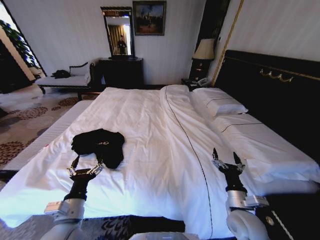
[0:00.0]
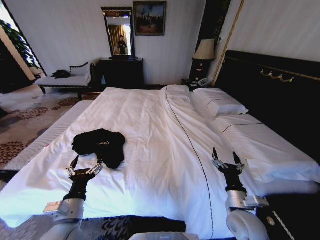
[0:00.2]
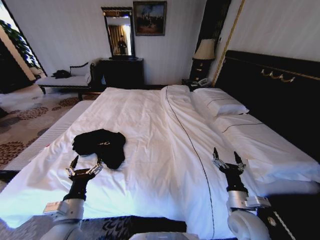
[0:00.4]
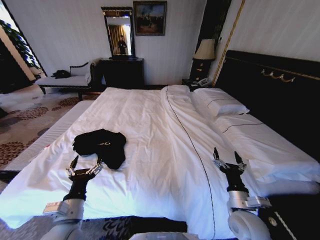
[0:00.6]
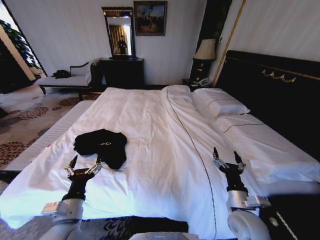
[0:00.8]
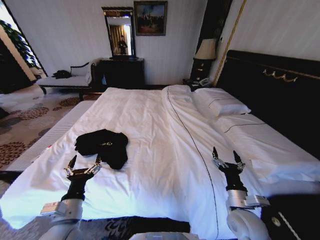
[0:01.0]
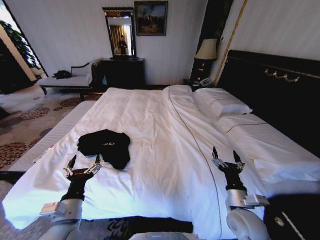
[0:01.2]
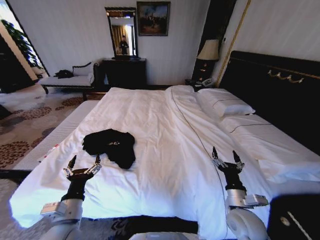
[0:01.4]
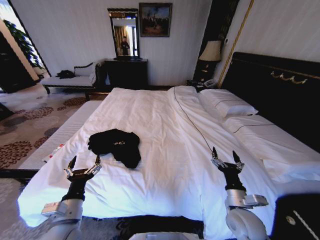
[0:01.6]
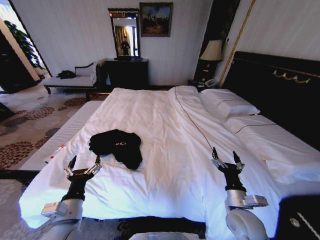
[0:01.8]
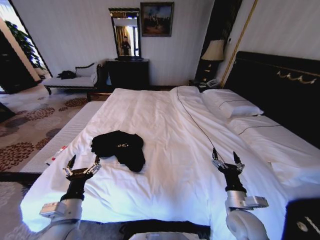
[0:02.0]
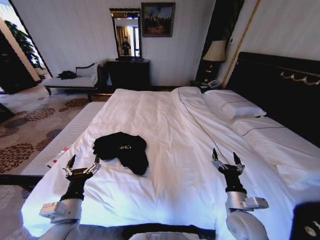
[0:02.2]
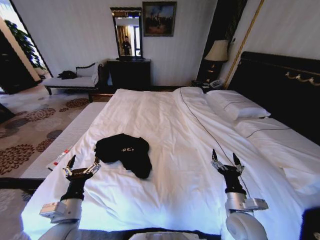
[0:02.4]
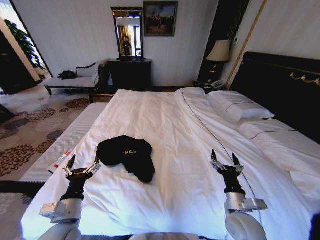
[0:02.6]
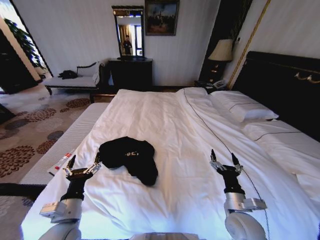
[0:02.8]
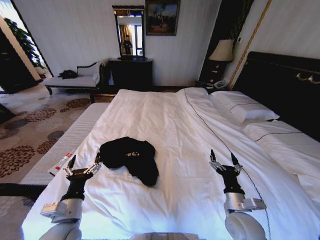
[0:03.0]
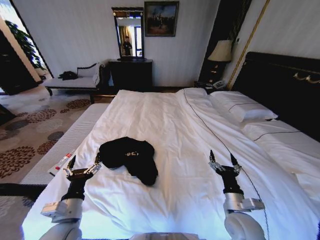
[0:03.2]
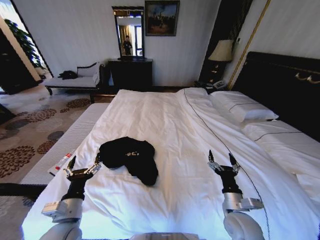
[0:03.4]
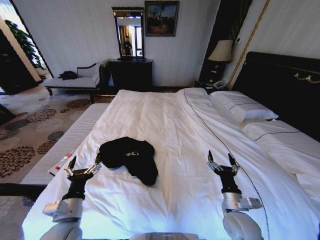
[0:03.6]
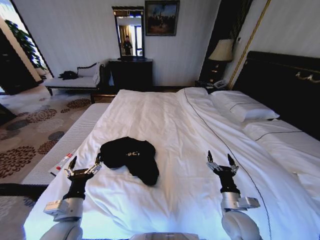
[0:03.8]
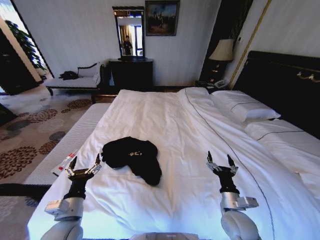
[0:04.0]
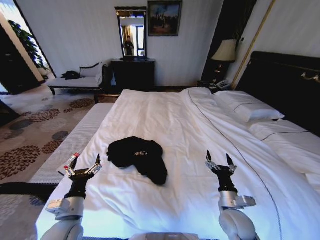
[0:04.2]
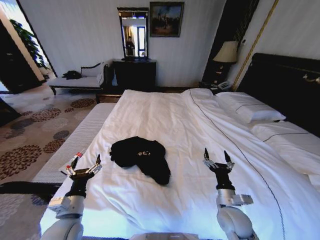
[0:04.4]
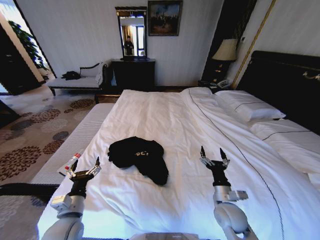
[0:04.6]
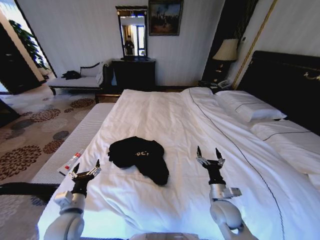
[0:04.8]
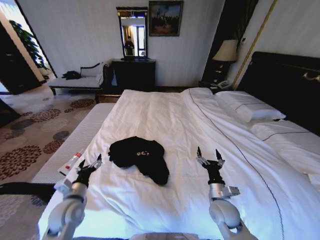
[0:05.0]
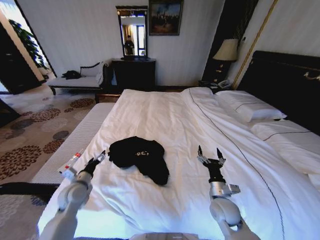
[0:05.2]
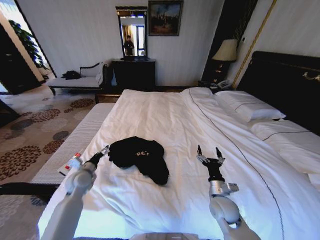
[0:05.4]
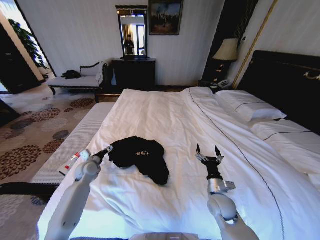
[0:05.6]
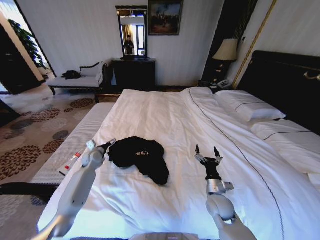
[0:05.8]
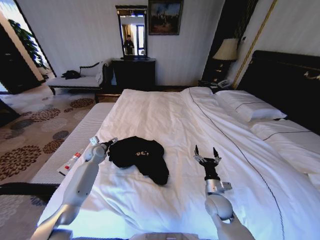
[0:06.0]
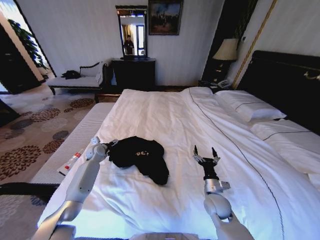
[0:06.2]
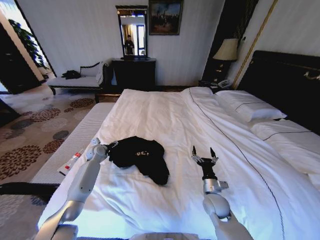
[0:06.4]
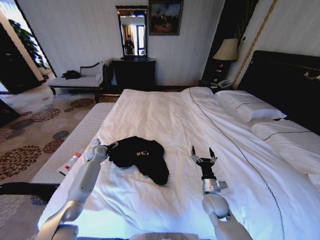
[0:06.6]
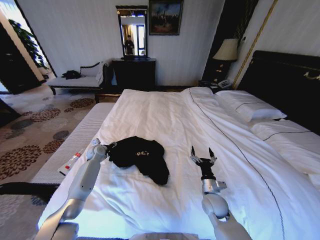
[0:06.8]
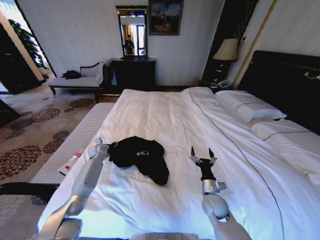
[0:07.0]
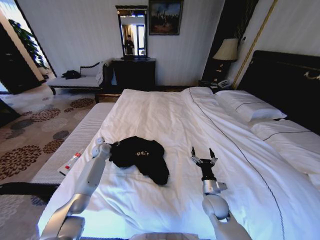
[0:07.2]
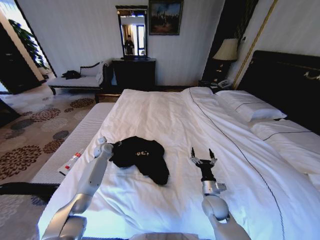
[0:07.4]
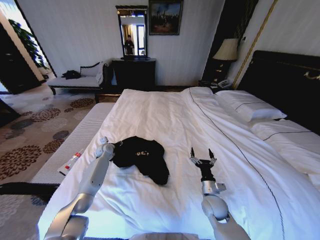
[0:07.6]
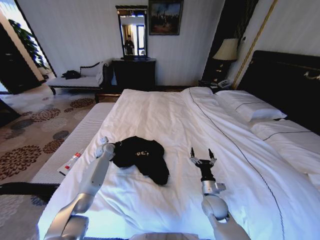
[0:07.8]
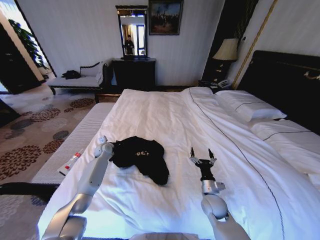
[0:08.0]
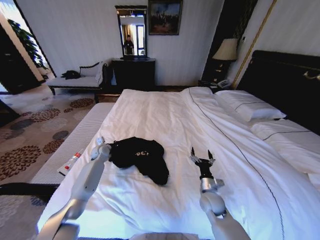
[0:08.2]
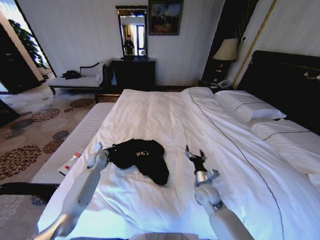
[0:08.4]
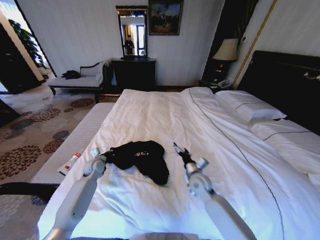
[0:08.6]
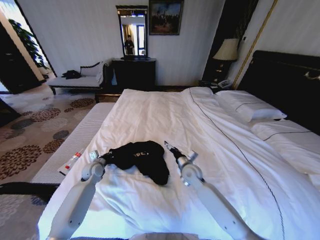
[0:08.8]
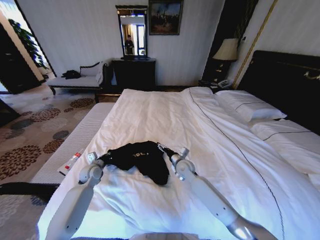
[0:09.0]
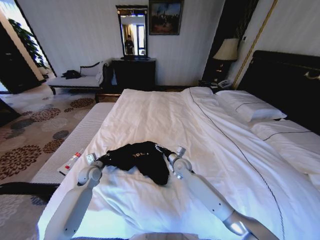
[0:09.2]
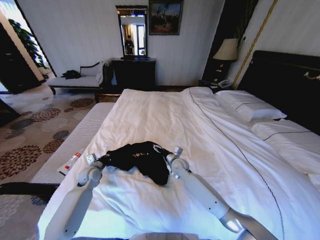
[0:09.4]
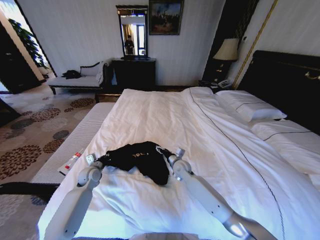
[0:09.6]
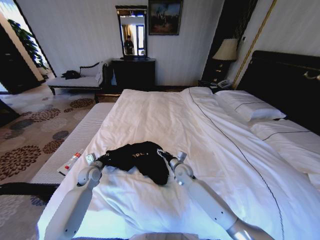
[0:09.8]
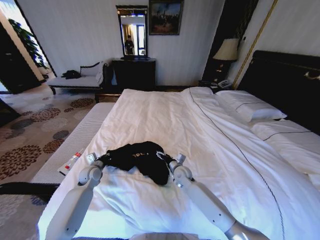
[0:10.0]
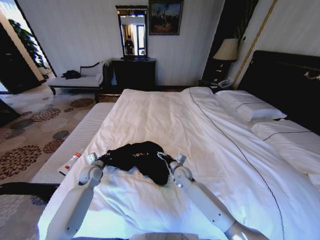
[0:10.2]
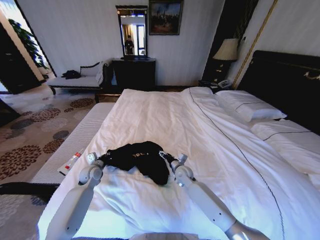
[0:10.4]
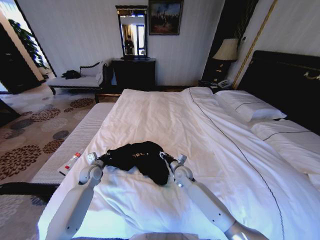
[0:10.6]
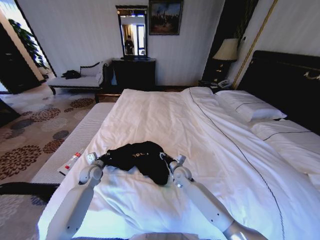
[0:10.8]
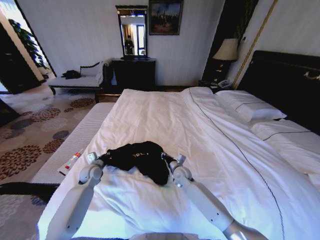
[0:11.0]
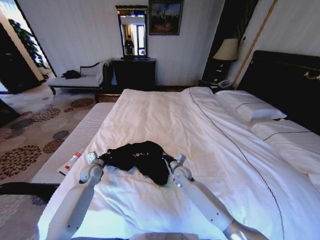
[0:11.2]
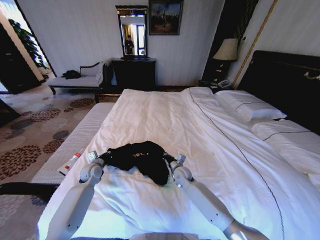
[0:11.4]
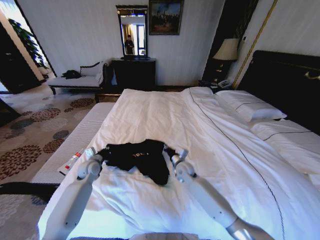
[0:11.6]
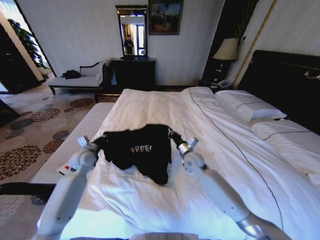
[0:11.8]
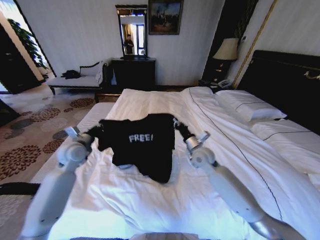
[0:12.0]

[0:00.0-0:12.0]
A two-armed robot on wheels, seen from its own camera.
Task of the whole recording: Fold the clothes on the bed.
0:04.4 to 0:06.0: The right gripper moves forward, roughly 5 cm, while the left gripper travels forward by some 35 cm.
0:06.0 to 0:07.6: The left gripper moves some 5 cm, and closes.
0:07.6 to 0:09.0: The left gripper travels backward by roughly 15 cm, and closes its fingers, while the right gripper heads forward and to the left, covering approximately 20 cm.
0:09.0 to 0:10.4: There are only small adjustments of the grippers.
0:10.4 to 0:12.0: The two grippers go about 15 cm upward. The right gripper closes up.

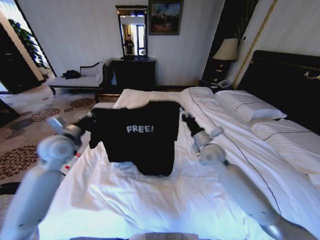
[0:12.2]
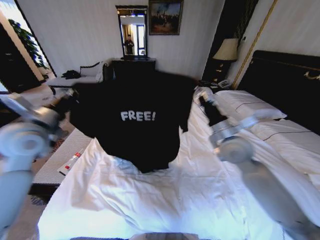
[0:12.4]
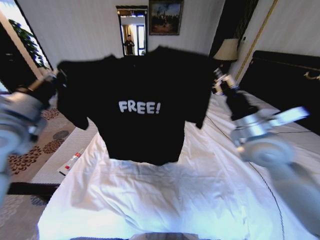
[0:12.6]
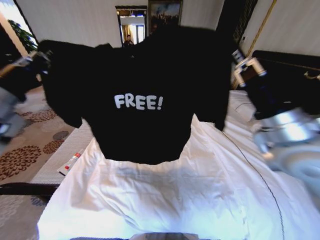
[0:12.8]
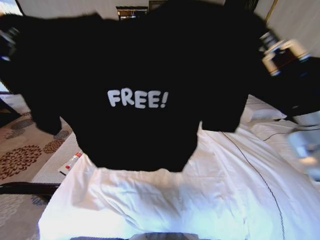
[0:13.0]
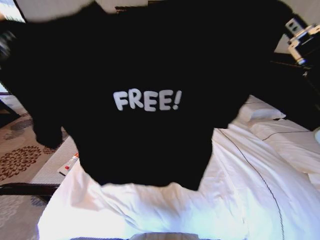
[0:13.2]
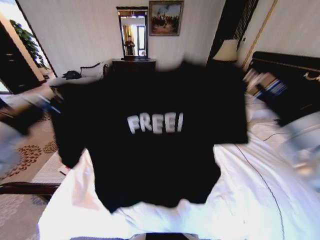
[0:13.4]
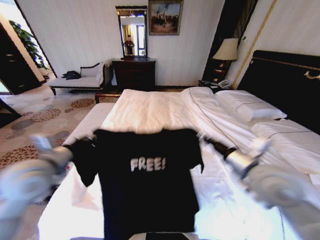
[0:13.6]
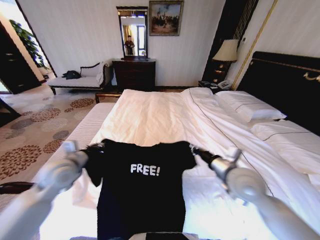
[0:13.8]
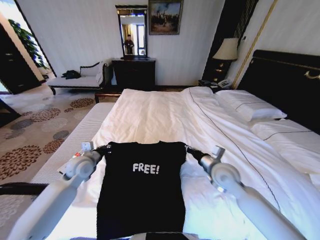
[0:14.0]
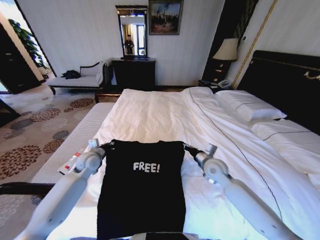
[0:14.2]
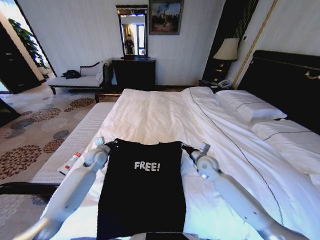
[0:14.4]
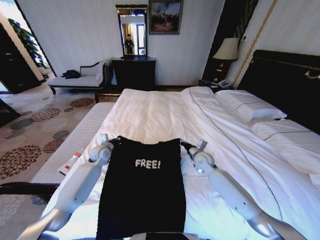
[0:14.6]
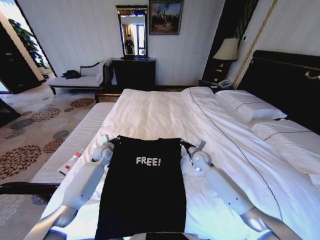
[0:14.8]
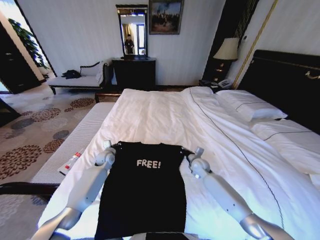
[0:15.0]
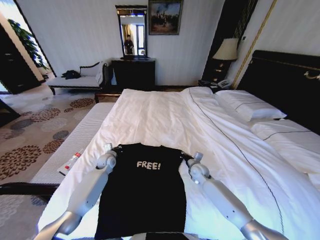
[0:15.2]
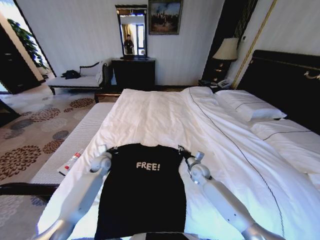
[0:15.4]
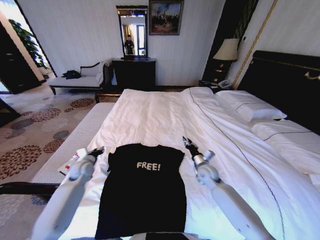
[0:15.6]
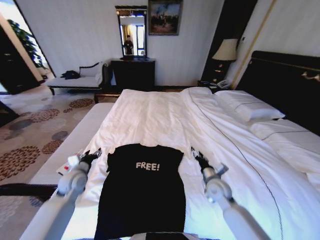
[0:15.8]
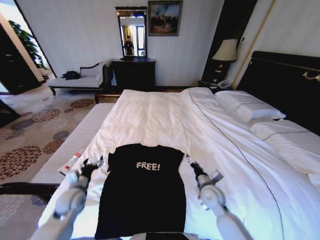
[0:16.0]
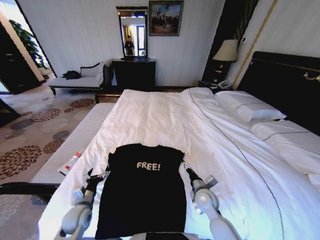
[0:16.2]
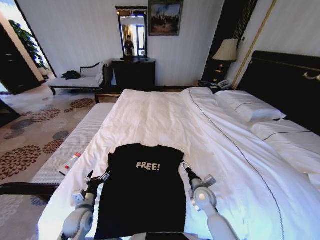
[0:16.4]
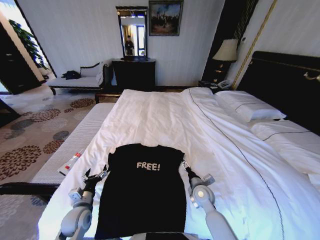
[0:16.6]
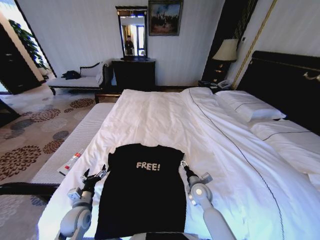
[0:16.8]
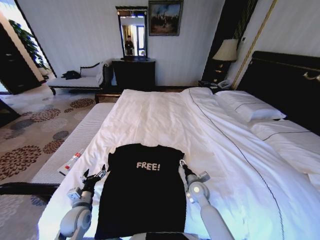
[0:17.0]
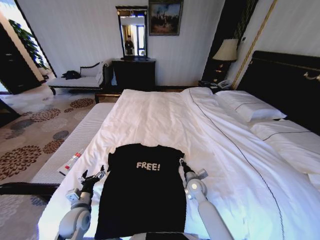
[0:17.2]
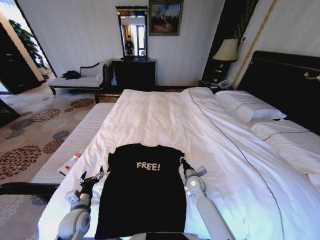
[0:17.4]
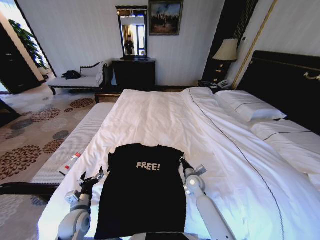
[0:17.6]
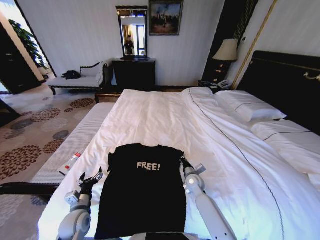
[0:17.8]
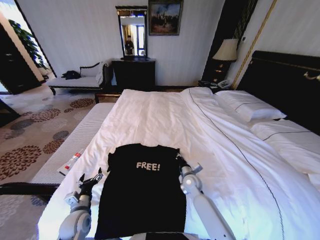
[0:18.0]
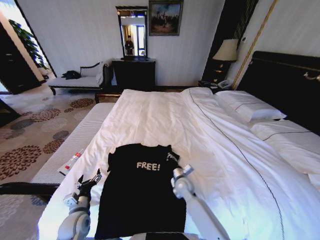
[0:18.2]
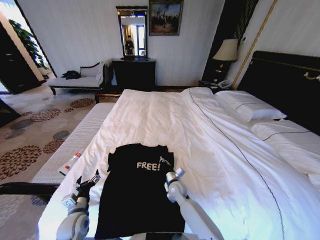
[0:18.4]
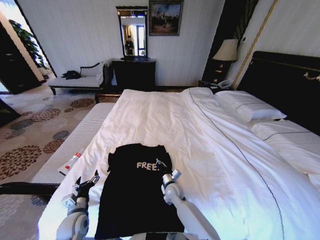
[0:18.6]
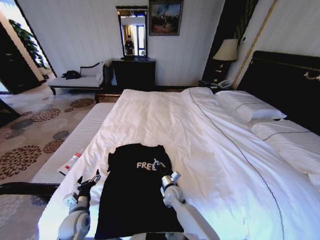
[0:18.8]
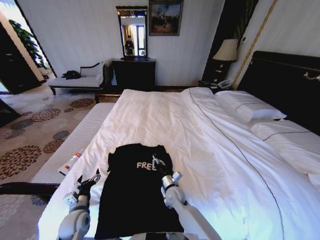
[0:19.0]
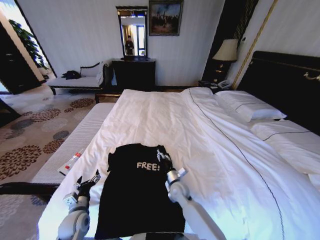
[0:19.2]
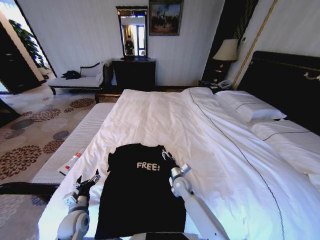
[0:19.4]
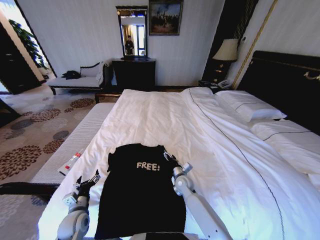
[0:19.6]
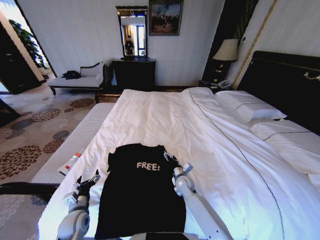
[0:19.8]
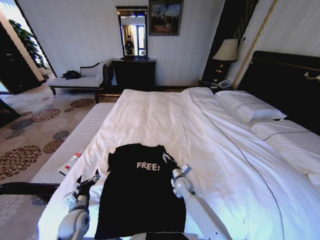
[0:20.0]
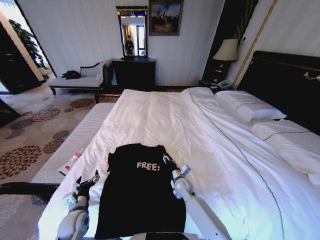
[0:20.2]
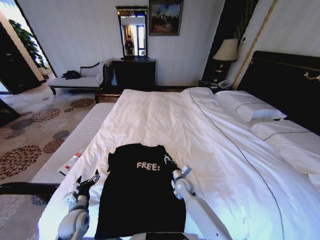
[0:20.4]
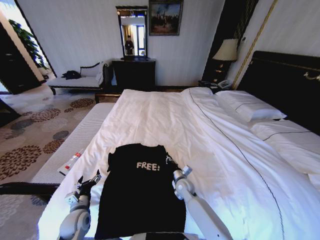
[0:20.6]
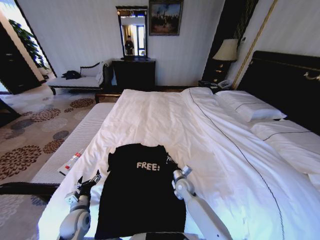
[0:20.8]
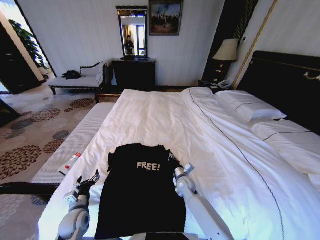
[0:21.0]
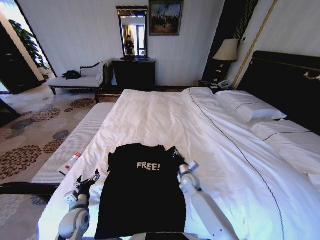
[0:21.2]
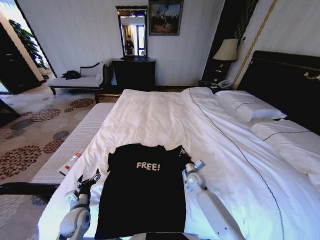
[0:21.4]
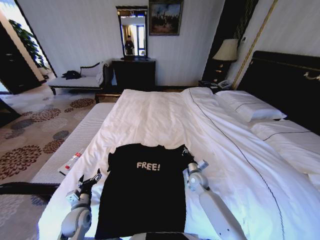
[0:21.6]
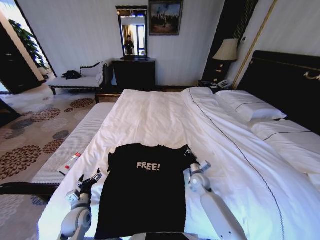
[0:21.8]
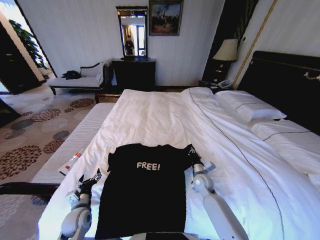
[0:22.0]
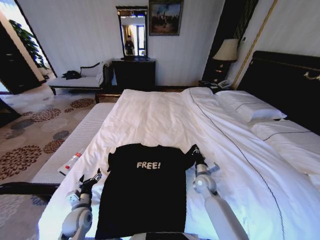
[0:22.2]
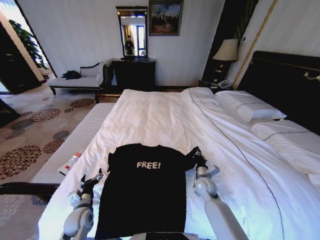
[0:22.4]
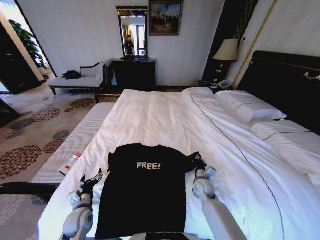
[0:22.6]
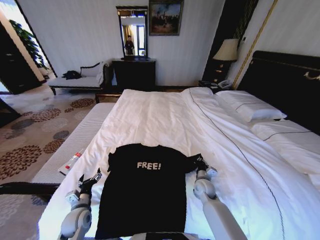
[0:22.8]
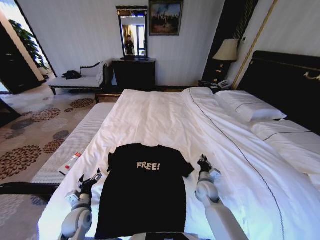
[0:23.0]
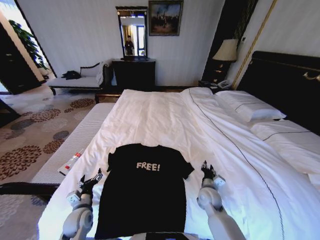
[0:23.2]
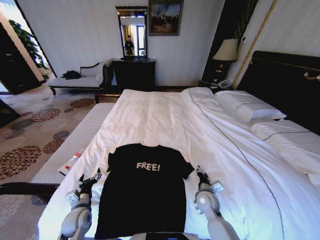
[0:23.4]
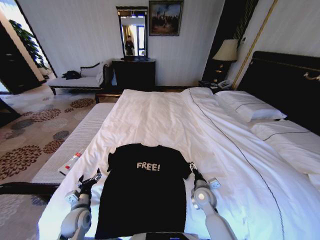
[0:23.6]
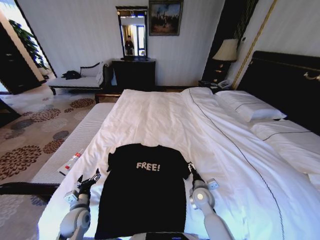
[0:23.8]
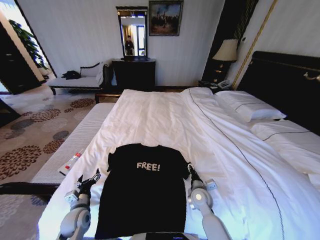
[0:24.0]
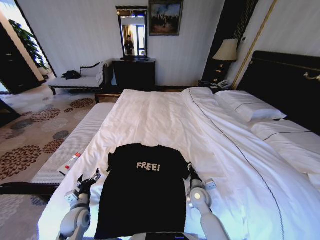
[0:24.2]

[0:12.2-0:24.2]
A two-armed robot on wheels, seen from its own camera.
Task of the whole recording: Fold the clothes on the bed.
0:12.2 to 0:13.8: The left gripper goes upward and returns, some 20 cm each way. Meanwhile the right gripper travels backward by approximately 10 cm, and goes upward and returns, some 25 cm each way.
0:13.8 to 0:15.2: Both grippers move downward and forward, some 25 cm.
0:15.2 to 0:16.6: The right gripper travels backward by about 15 cm, and opens its fingers. The left gripper is displaced backward by some 25 cm, and opens up.
0:16.6 to 0:18.2: The right gripper moves to the left and forward, approximately 10 cm, and closes.
0:18.2 to 0:19.8: The right gripper opens up.
0:19.8 to 0:21.2: The right gripper closes up.
0:21.2 to 0:22.6: The right gripper moves to the right, approximately 5 cm.
0:22.6 to 0:24.2: The right gripper goes approximately 5 cm backward, and opens.
